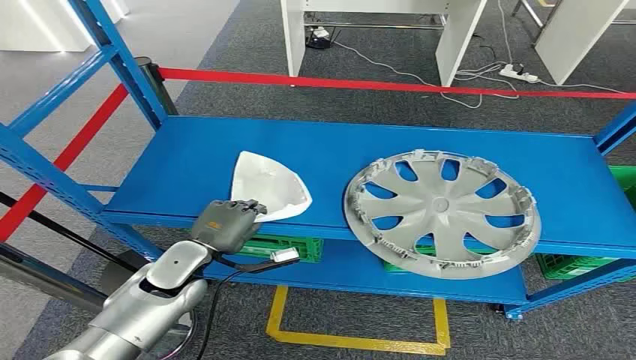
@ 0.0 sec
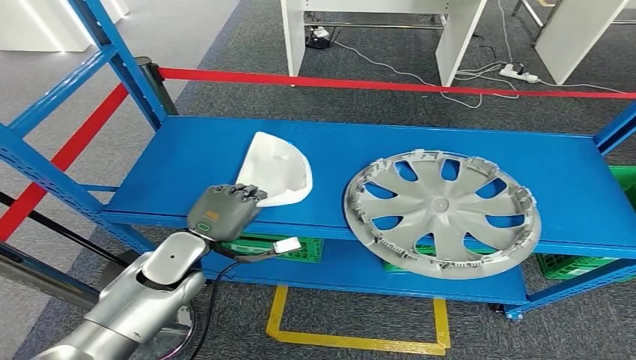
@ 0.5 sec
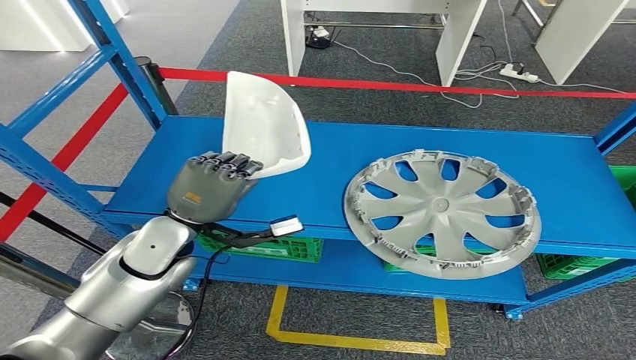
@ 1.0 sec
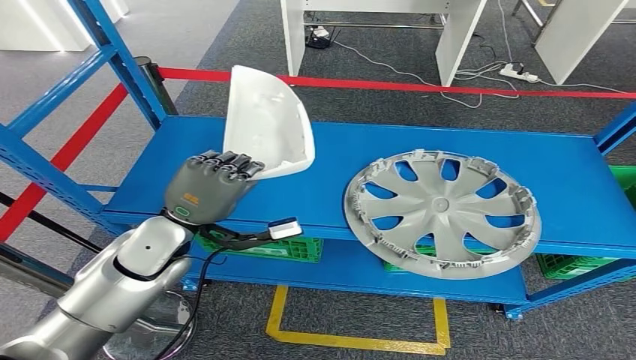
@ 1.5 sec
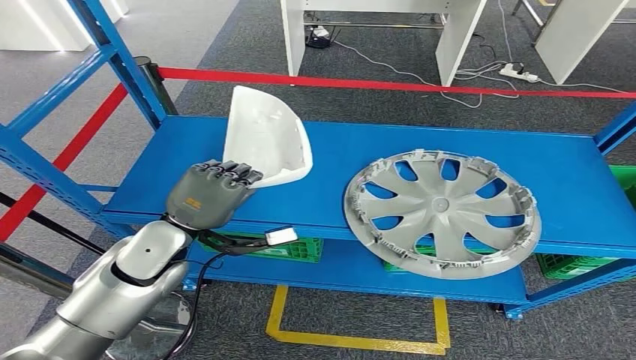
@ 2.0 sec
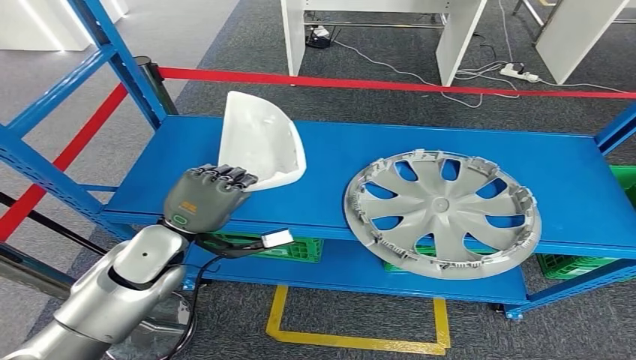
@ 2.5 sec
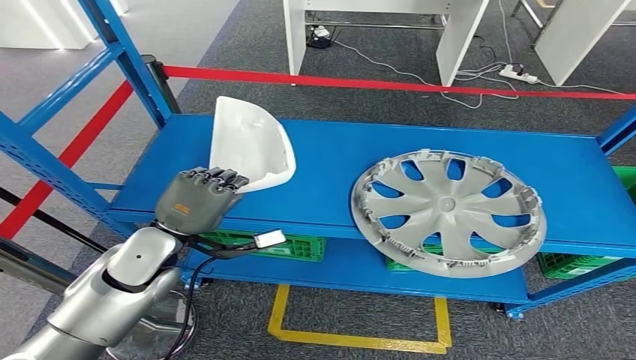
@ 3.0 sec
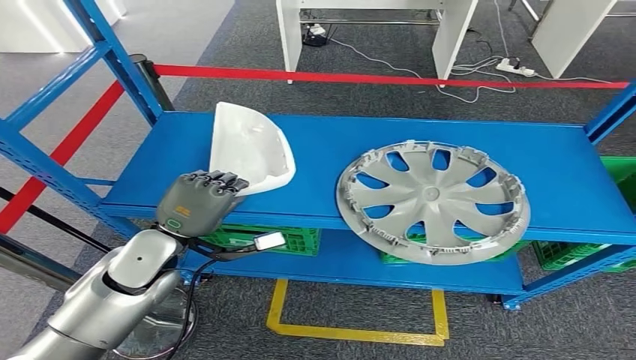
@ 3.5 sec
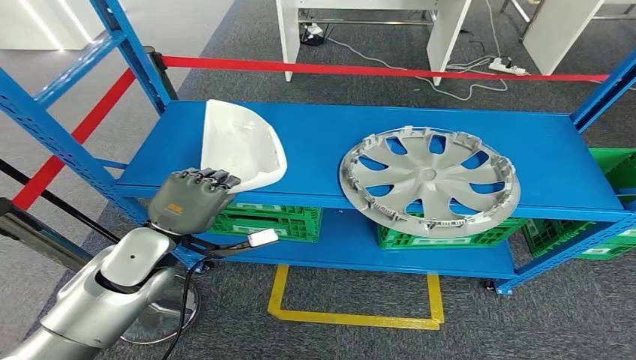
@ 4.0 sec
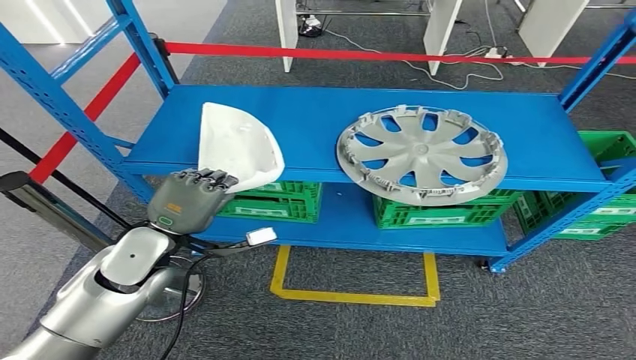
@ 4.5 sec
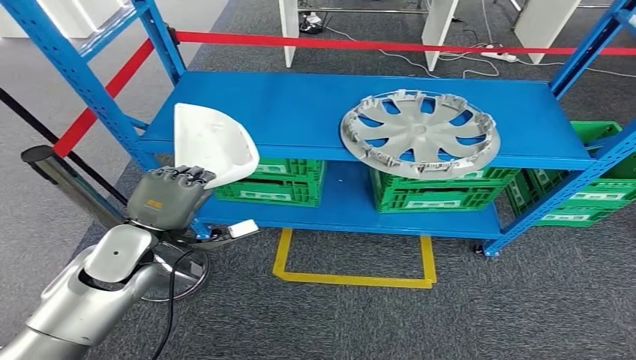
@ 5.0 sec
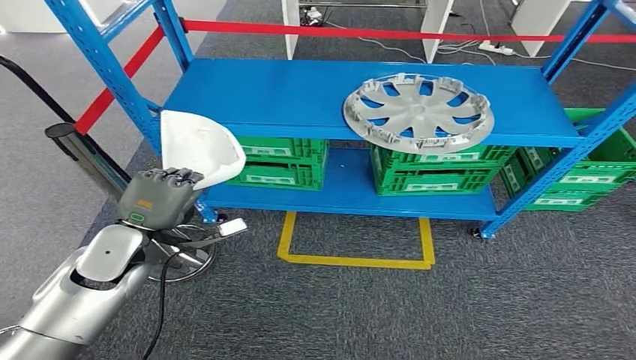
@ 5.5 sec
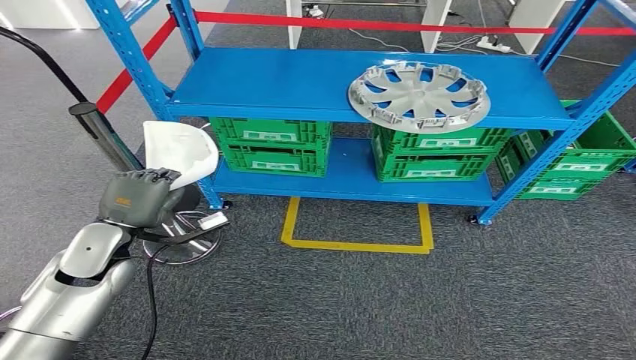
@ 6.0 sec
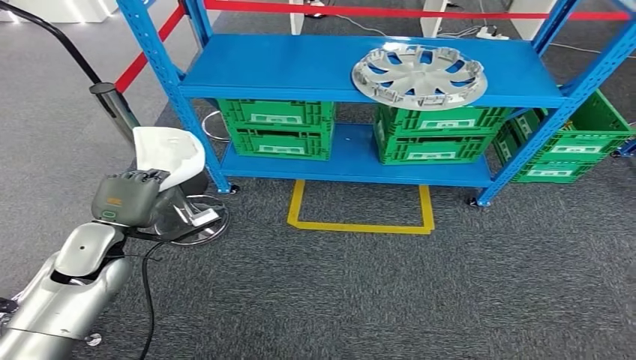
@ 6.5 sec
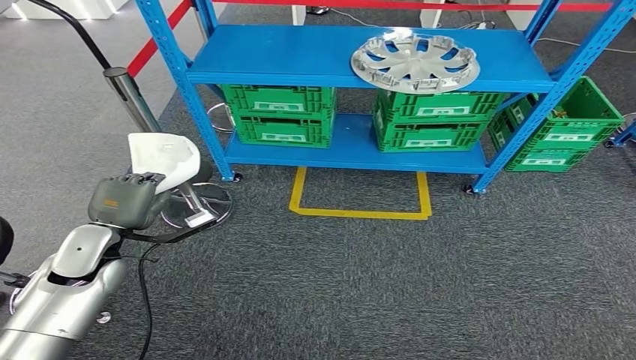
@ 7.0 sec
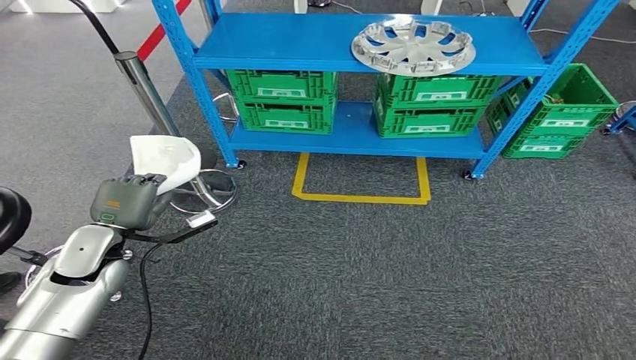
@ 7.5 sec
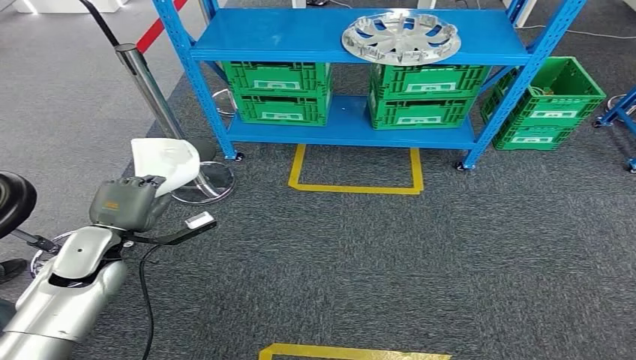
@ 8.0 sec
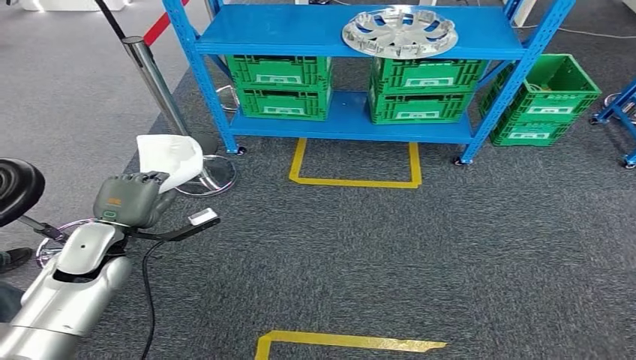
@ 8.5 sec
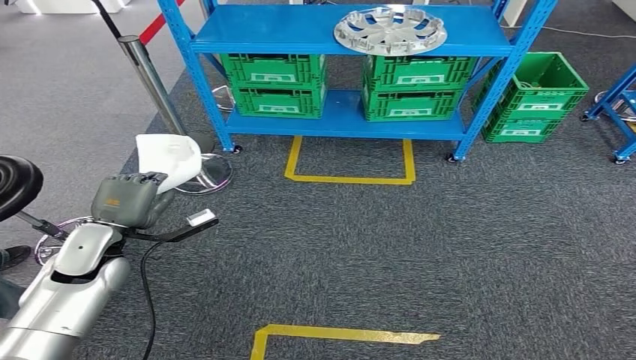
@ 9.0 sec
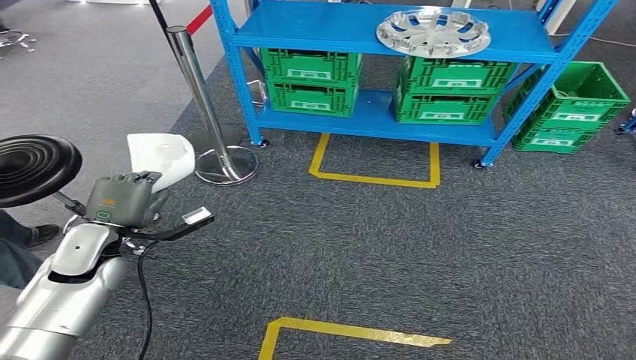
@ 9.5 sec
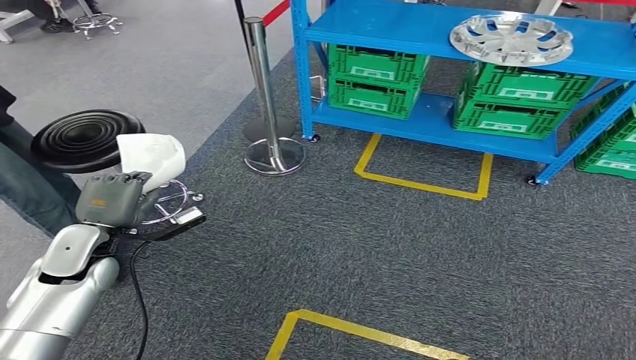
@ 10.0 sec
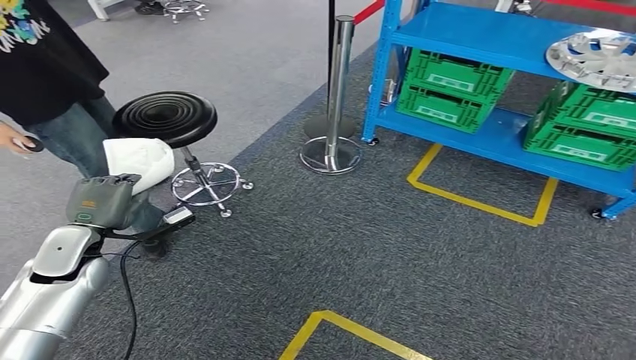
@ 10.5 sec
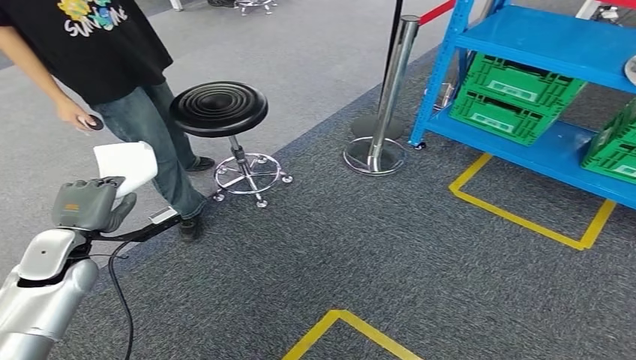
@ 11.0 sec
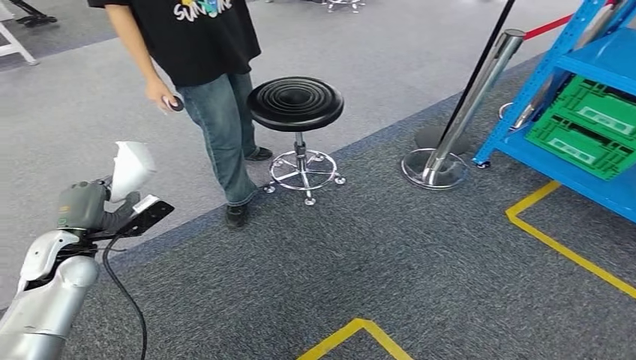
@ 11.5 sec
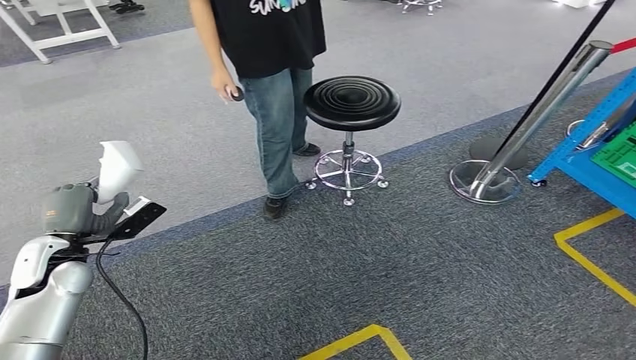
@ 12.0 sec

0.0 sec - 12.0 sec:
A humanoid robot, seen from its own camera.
Step, 0.0 sec - 6.0 sec: Pick up the small parts from the shelf.

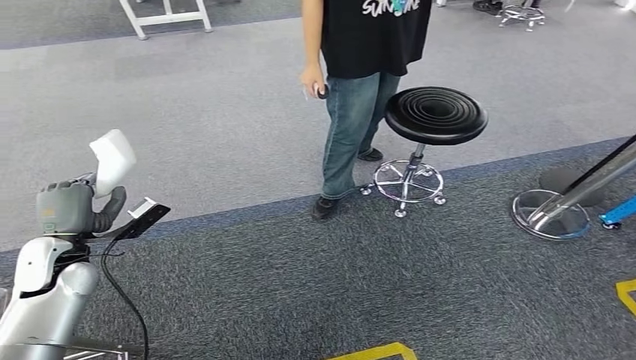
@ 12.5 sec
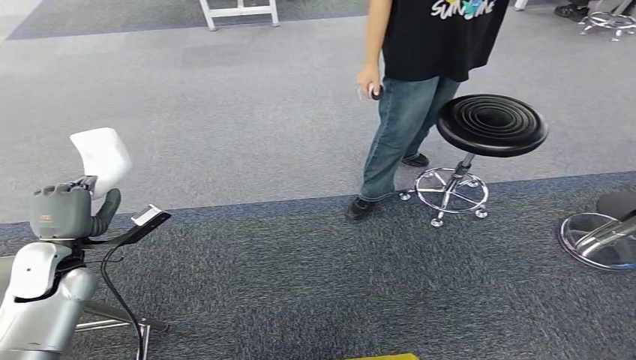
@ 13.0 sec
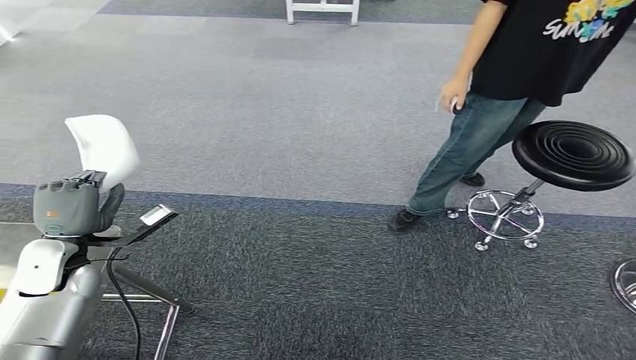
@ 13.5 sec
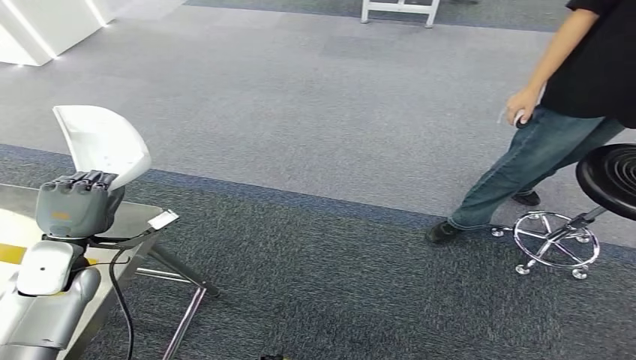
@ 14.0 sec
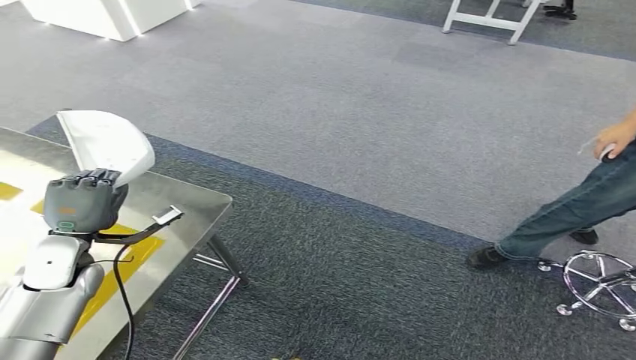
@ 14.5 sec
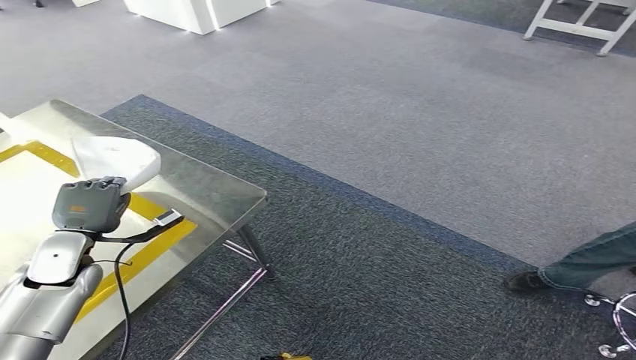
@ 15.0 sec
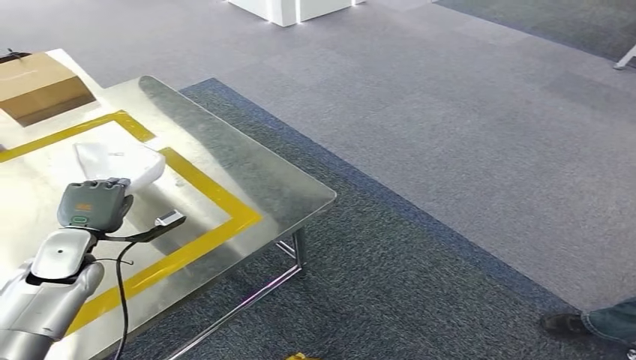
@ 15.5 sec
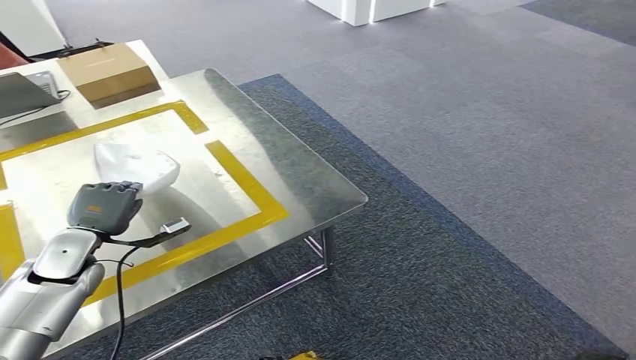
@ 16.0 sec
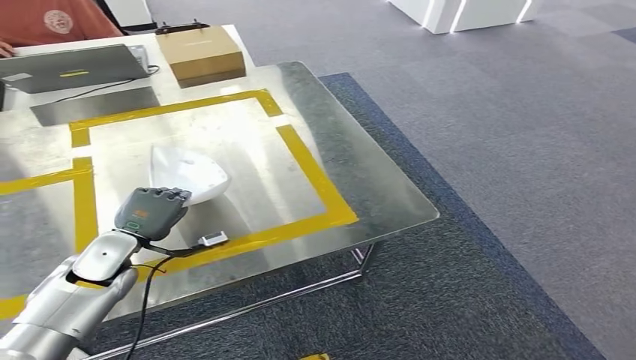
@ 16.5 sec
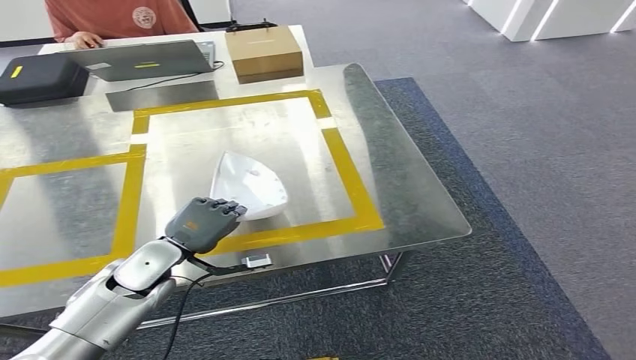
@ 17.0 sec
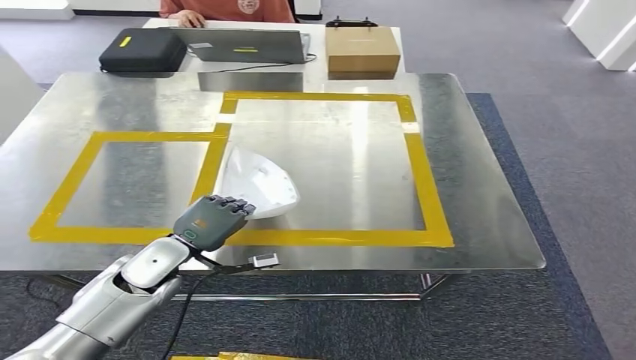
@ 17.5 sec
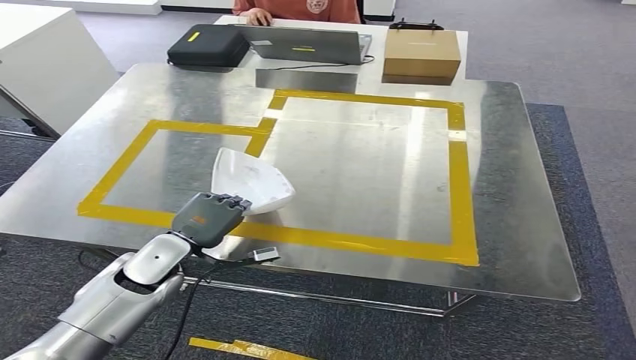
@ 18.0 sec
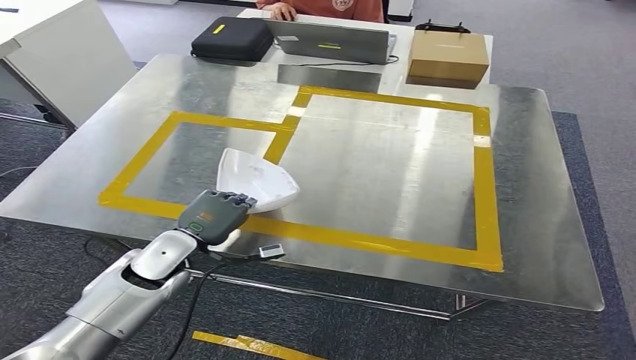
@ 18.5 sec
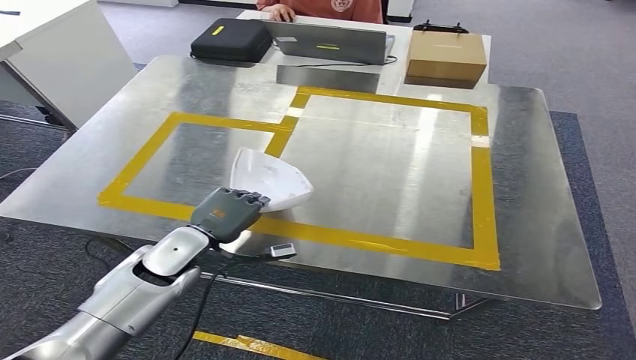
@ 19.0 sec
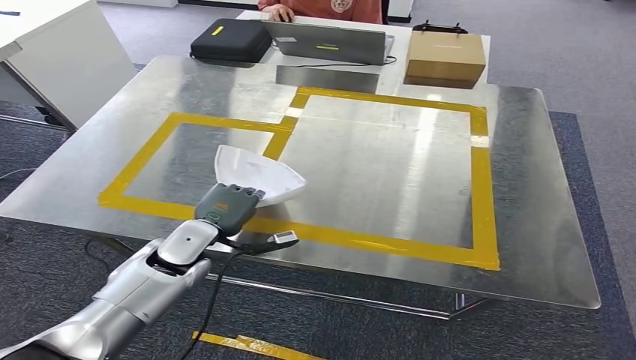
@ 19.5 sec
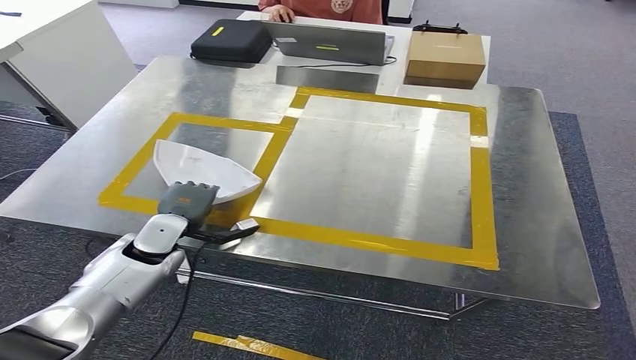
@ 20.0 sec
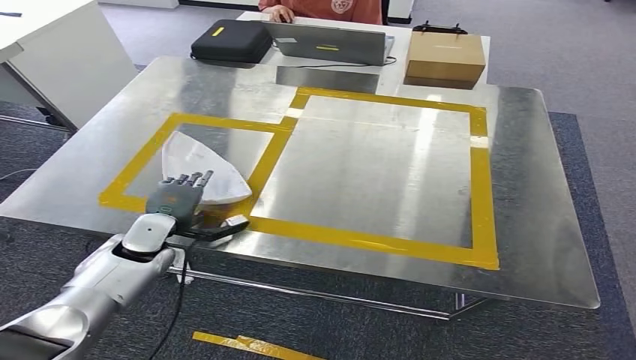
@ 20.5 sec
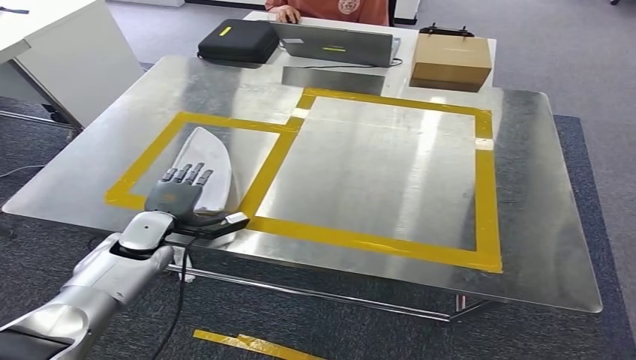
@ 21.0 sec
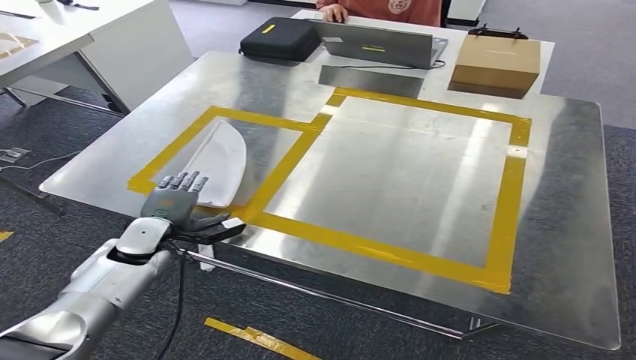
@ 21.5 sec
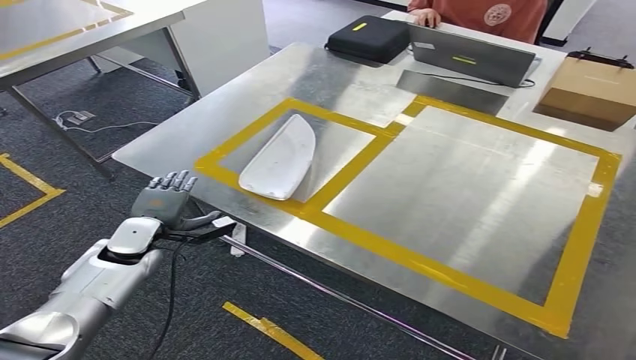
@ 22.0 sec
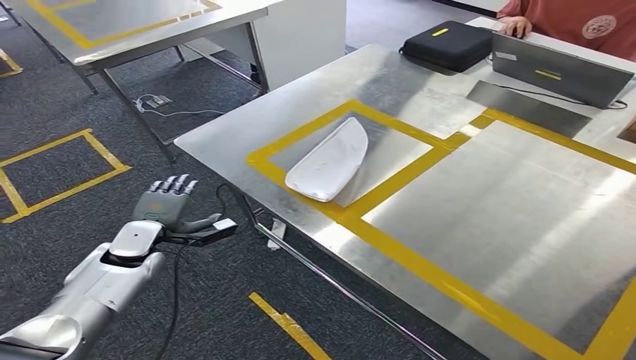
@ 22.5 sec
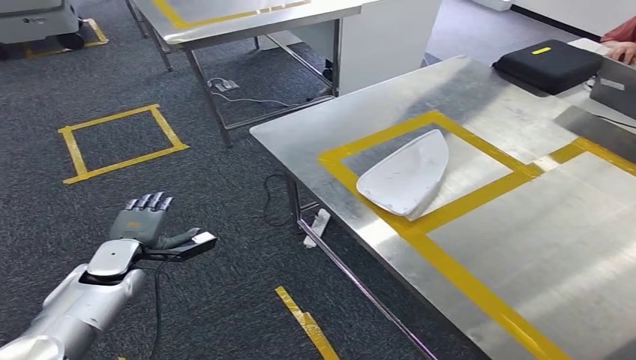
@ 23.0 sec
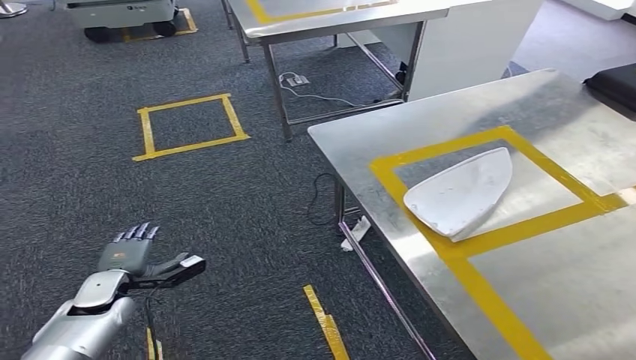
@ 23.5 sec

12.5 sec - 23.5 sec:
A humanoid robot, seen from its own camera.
Step, 12.5 sec - 15.0 sec: Move the small parts to the workbench.
Step, 16.0 sec - 20.5 sec: Insert the small parts into the corresponding holes on the workbench.
